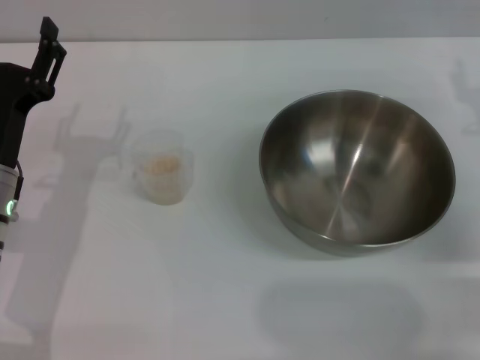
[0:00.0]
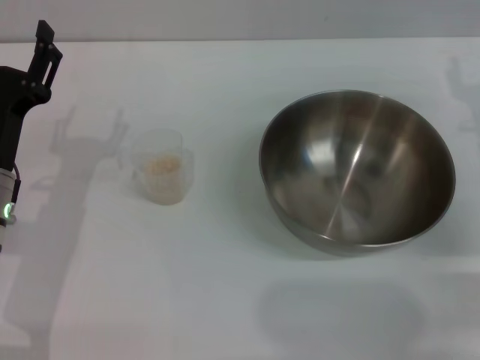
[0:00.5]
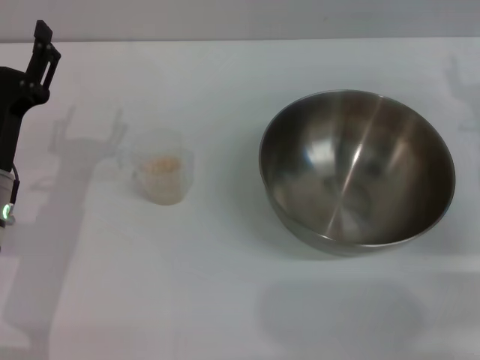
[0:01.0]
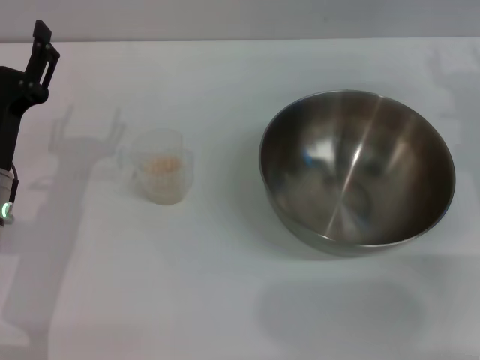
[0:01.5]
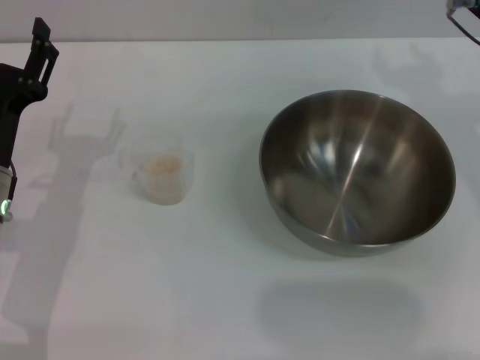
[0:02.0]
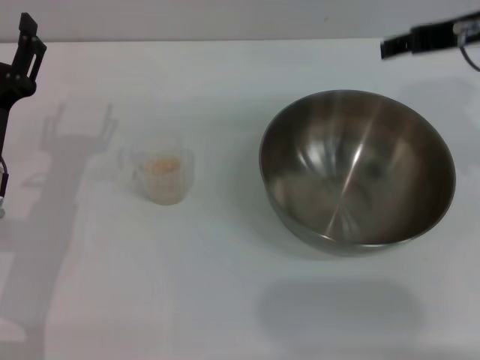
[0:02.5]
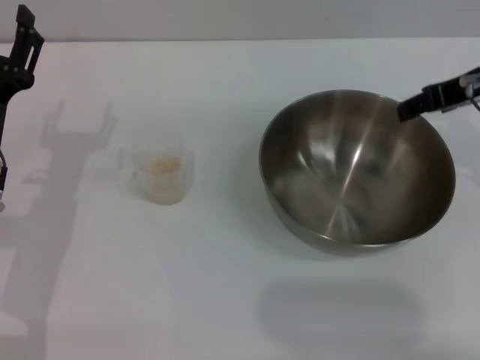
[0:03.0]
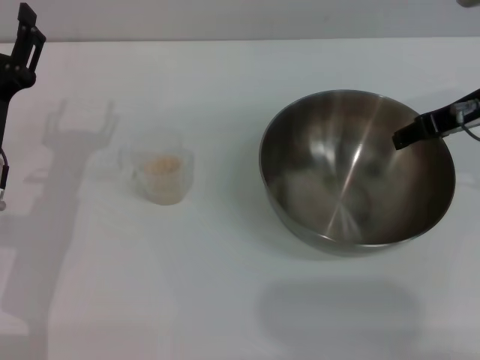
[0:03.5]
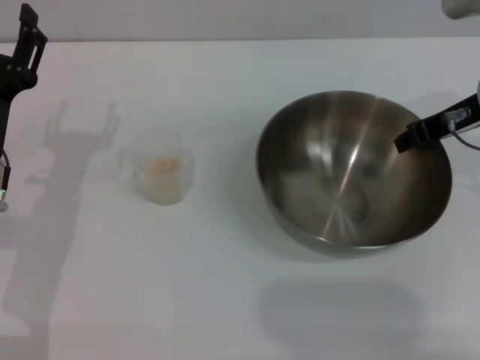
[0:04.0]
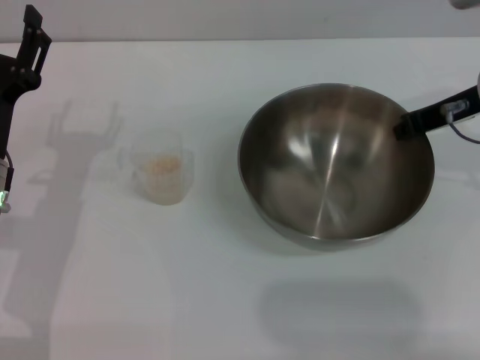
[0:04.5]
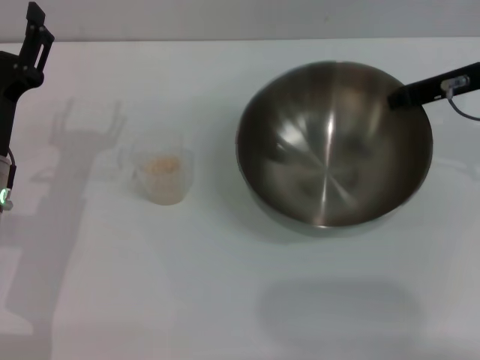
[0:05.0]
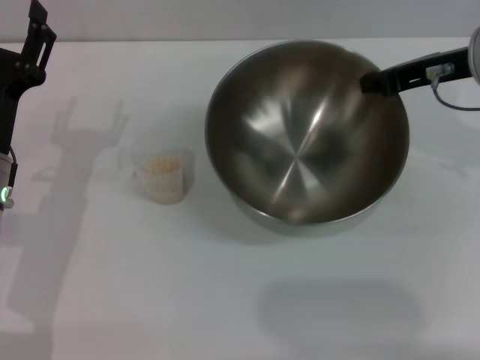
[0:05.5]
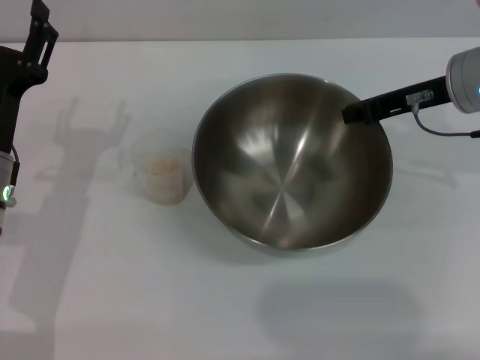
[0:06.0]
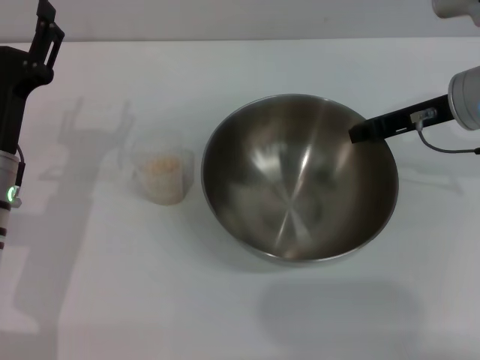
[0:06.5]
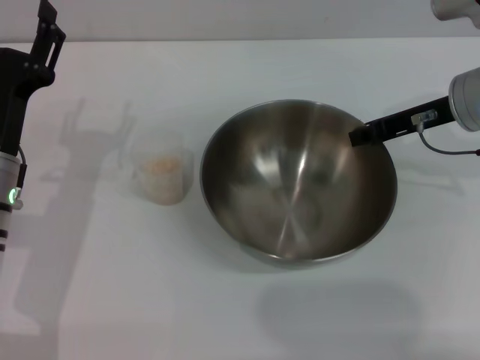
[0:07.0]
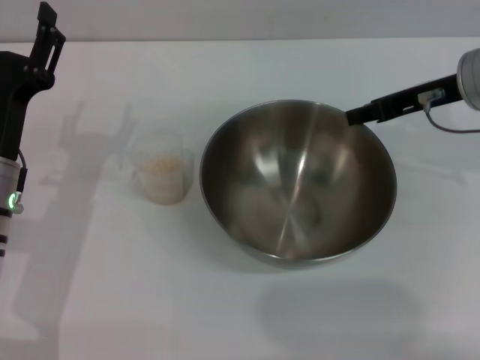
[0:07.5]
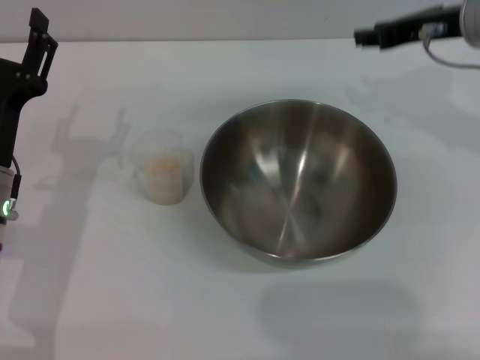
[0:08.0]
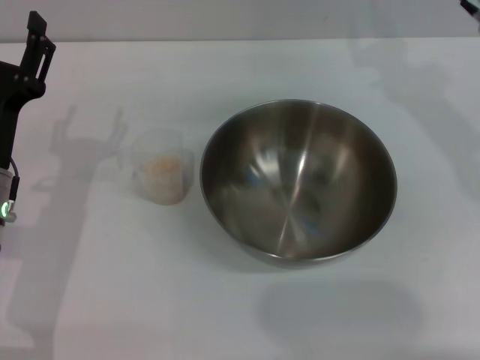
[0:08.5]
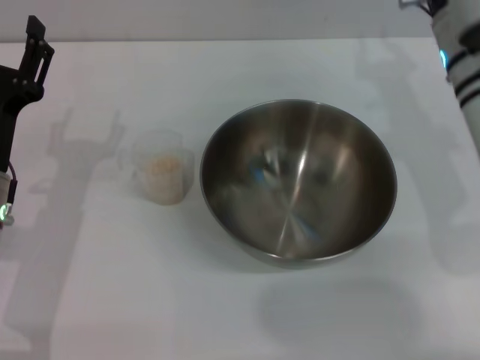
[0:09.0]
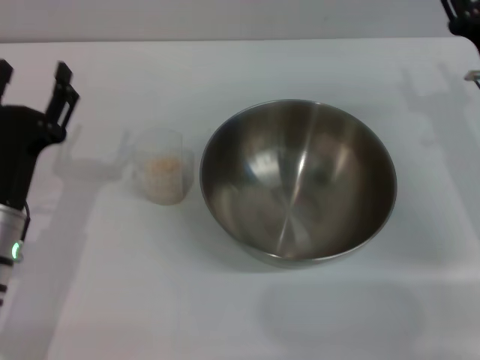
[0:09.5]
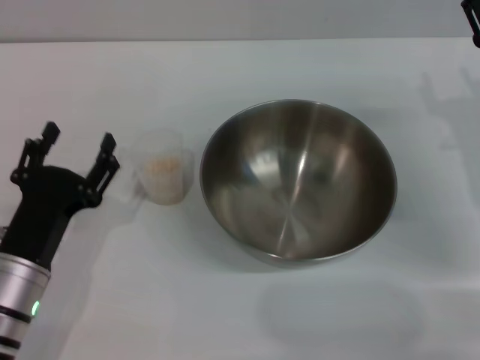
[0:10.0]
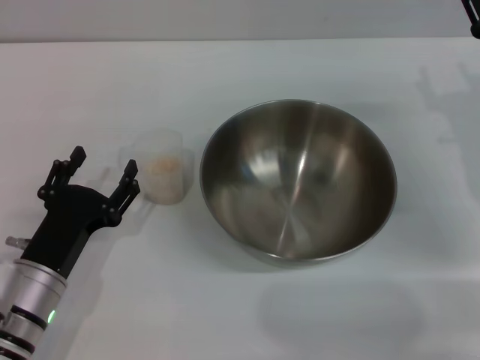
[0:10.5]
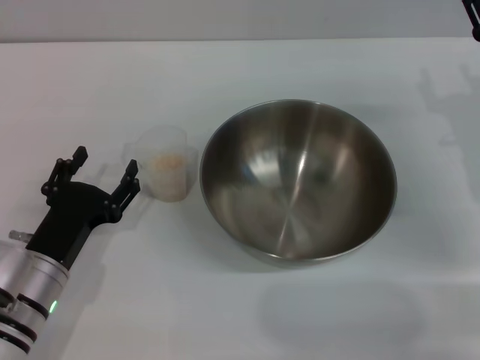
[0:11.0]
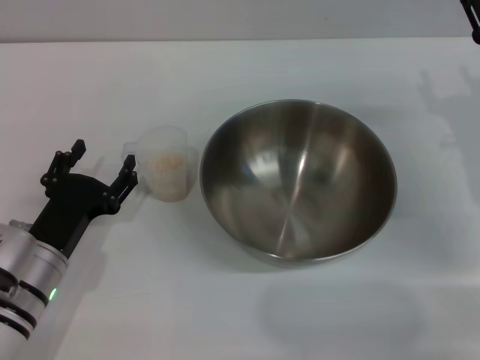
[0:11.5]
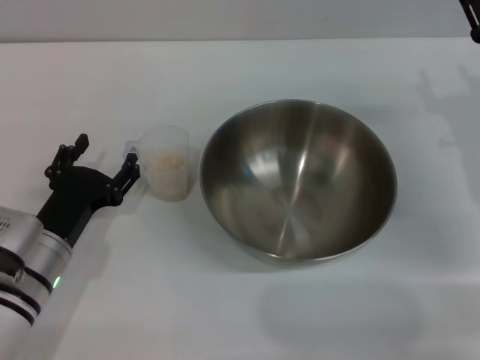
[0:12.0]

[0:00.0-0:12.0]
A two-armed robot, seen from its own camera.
Task of the whole recording: Place the bowl in the middle of the table with one hand and pour the rice from the grain cup into it with the other hand.
Step, 0.0 to 4.5 s: Pick up the bowl with the right gripper.
Step, 5.0 to 7.0 s: Place the bowl in the center of view with the right gripper.
0.0 to 2.0 s: The right gripper heads upward and to the left, covering roughly 10 cm.
4.0 to 6.0 s: The right gripper closes its fingers.
6.0 to 8.0 s: The right gripper opens.
8.0 to 10.0 s: The left gripper travels backward and downward by about 10 cm, while the right gripper moves downward and backward, roughly 15 cm, and opens its fingers.
10.0 to 12.0 s: The grippers make only small movements.

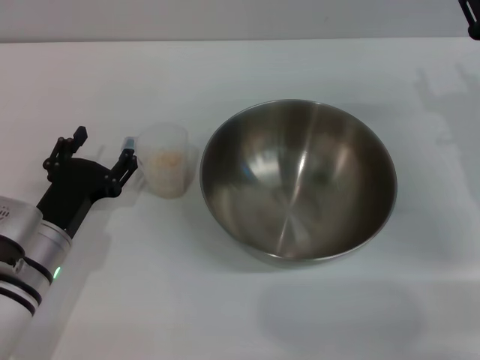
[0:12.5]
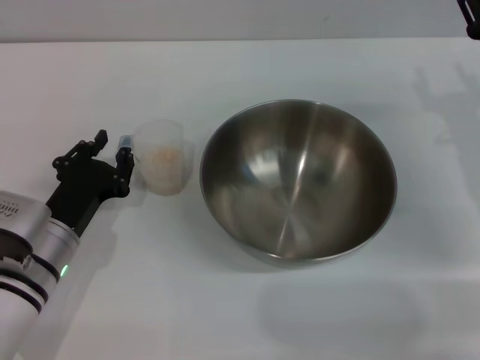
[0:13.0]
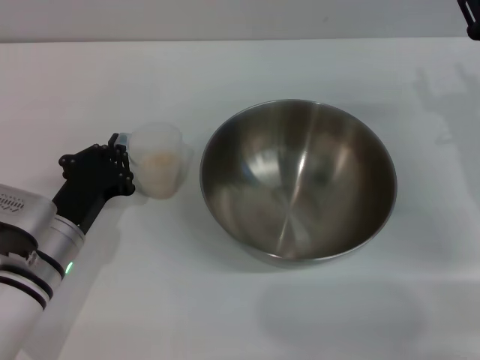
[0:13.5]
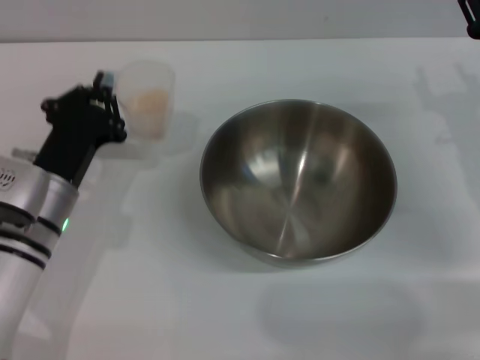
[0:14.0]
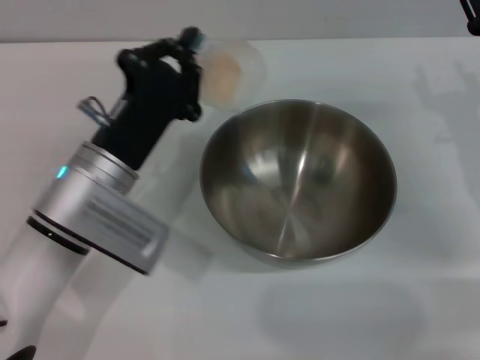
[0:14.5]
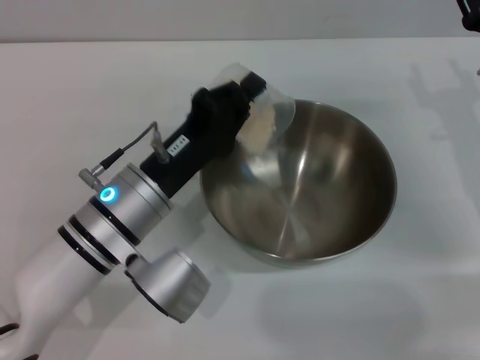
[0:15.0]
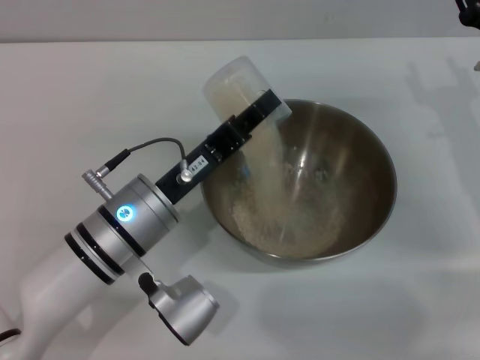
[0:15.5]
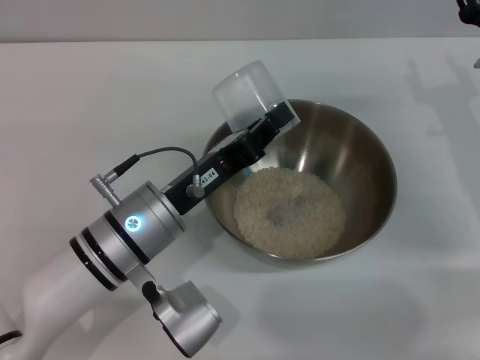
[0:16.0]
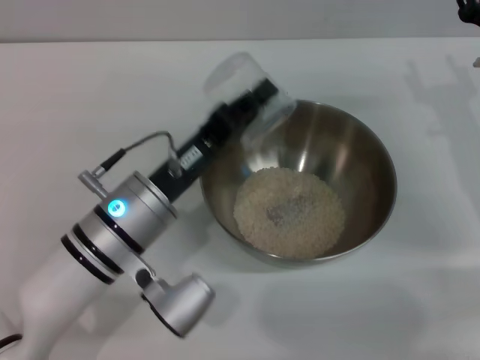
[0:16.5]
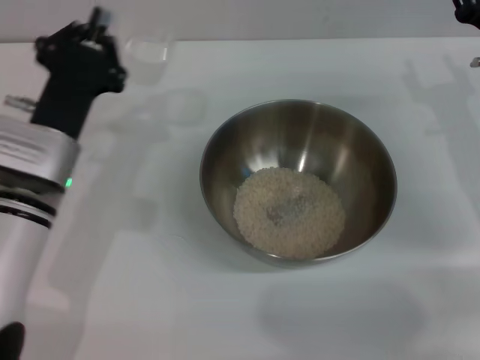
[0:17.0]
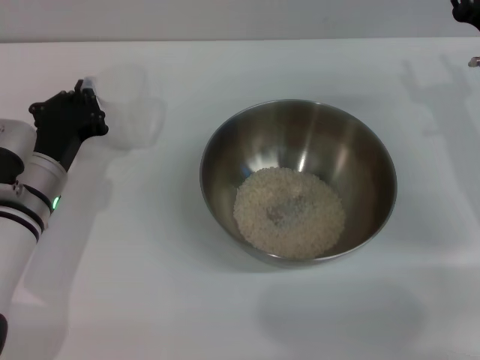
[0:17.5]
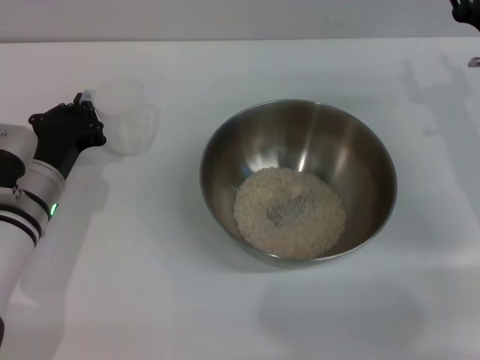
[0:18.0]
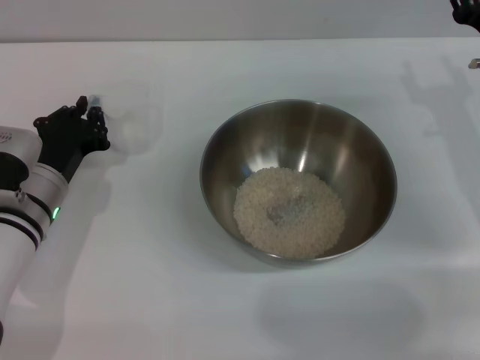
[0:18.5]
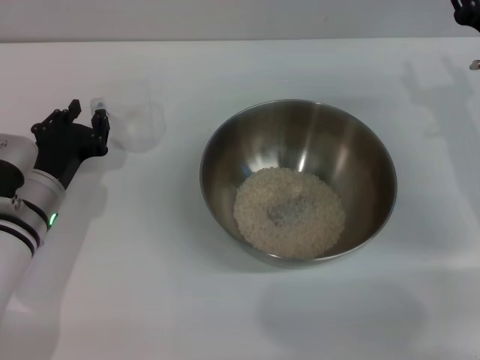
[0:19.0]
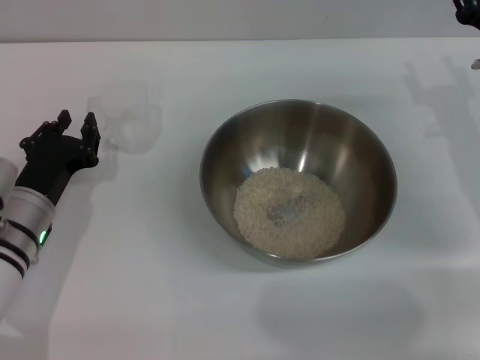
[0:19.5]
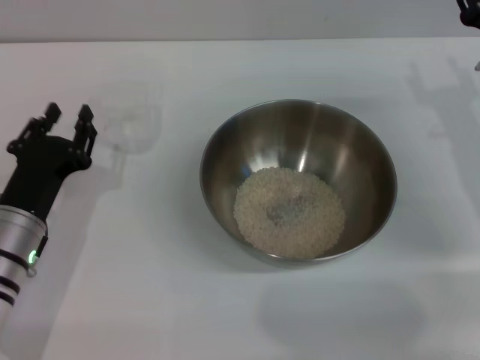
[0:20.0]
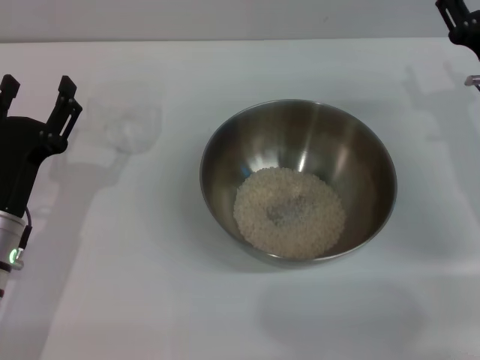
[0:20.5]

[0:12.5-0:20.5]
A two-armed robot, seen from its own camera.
Task of the whole recording: Place the bowl in the middle of the table with one hand and pour the rice from the grain cup into it with the other hand.
Step, 14.0 to 16.0 s: Pour the rice from the cup into the bowl with the left gripper.
Step, 16.5 to 19.5 s: Place the cup on the table with the left gripper.
12.5 to 14.5 s: The left gripper heads upward and to the right, covering approximately 10 cm, and closes.
16.5 to 18.5 s: The left gripper moves to the left and forward, some 10 cm.
18.5 to 20.5 s: The left gripper is displaced backward by roughly 5 cm, and opens its fingers.

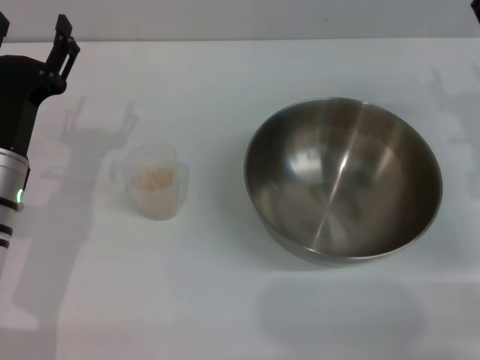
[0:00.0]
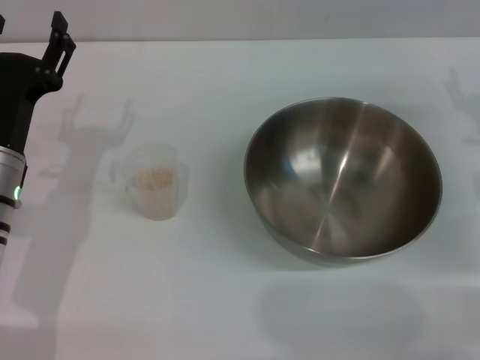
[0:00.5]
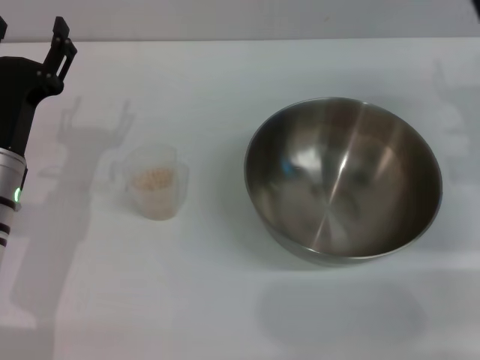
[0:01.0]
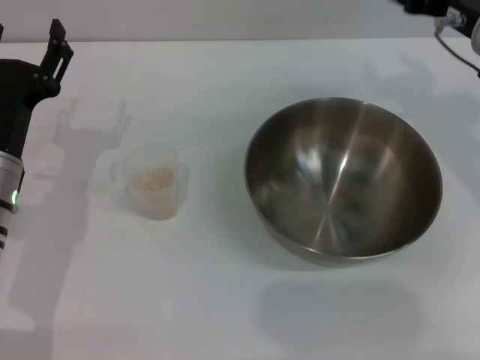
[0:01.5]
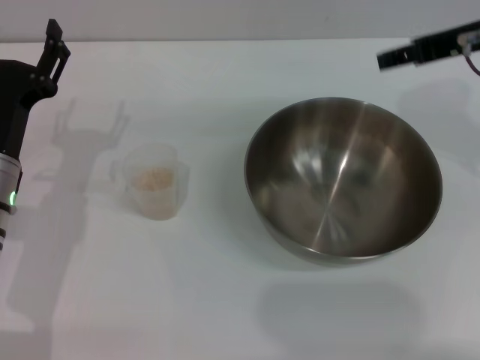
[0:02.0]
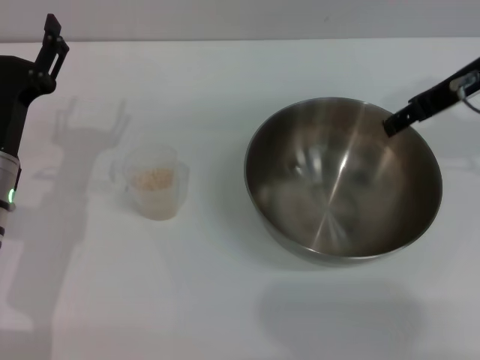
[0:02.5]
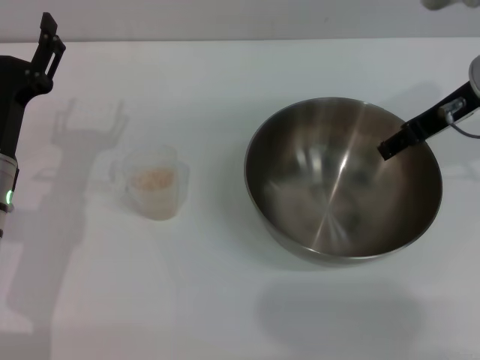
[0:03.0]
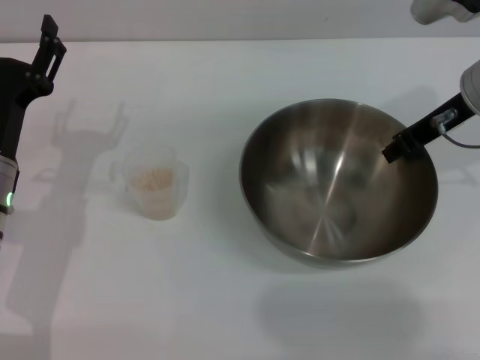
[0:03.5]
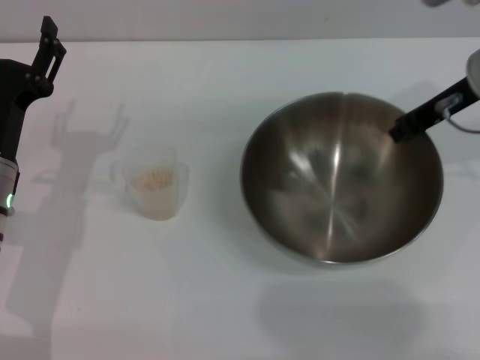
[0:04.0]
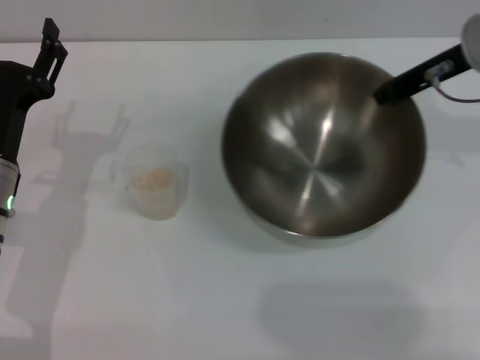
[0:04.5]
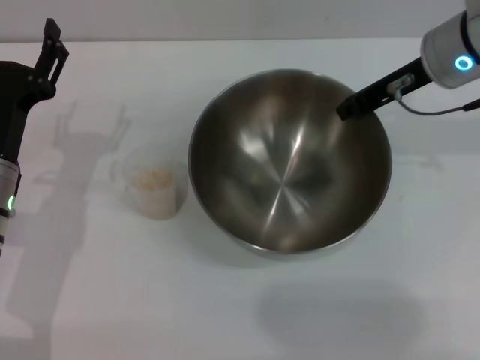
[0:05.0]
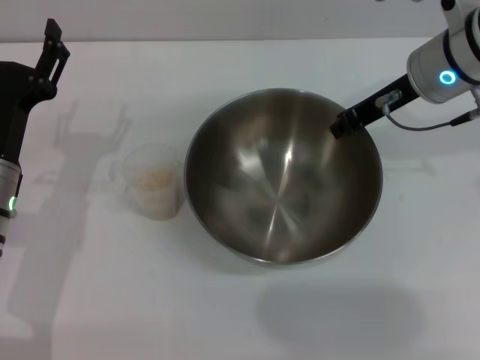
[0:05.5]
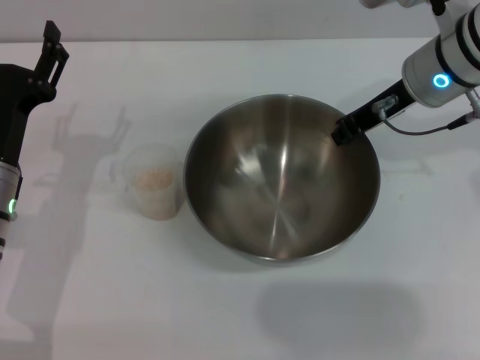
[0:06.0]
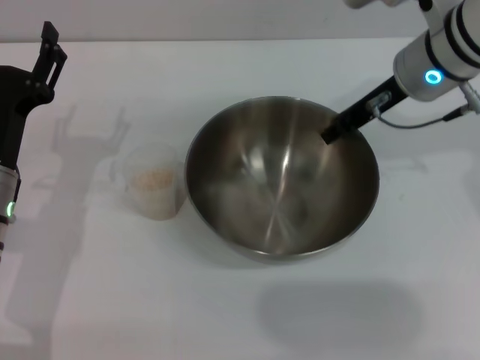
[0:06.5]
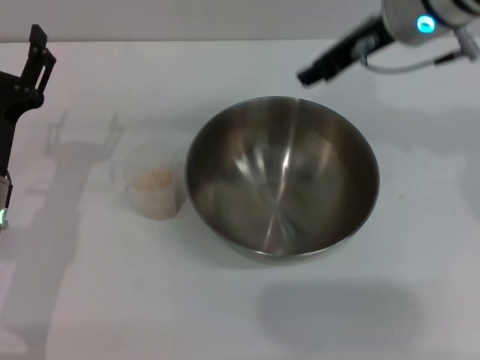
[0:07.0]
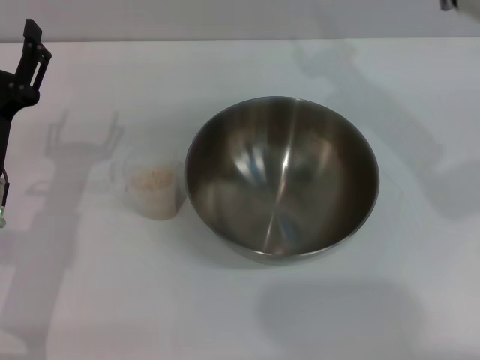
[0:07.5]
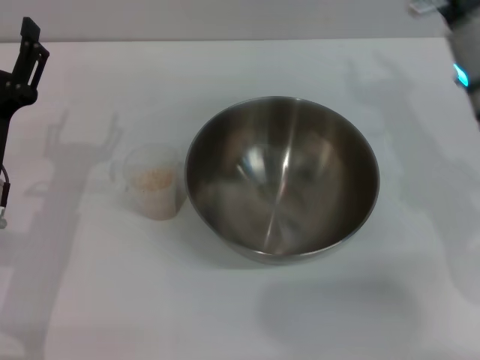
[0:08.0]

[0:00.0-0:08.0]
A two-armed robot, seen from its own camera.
Task of the whole recording: Place the bowl in the middle of the table with one hand and pour the rice from the grain cup into it with the other hand.
Step, 0.0 to 4.0 s: Pick up the bowl with the right gripper.
Step, 4.5 to 6.5 s: Place the bowl in the center of view with the right gripper.
0.0 to 2.0 s: The right gripper shifts some 15 cm upward.
2.0 to 4.0 s: The right gripper travels downward by roughly 5 cm, and closes up.
4.0 to 6.0 s: The right gripper changes place by about 5 cm.
6.0 to 8.0 s: The right gripper heads backward, covering roughly 5 cm, moves about 5 cm upward and comes back, and opens up.
